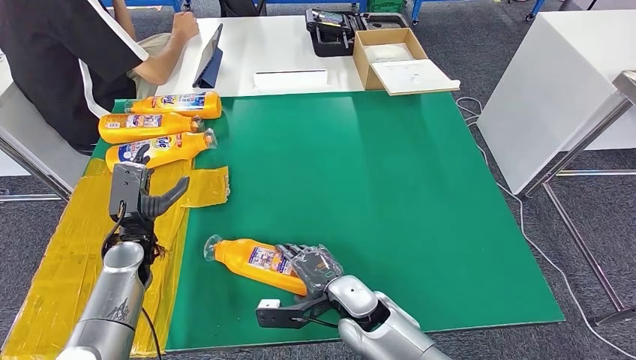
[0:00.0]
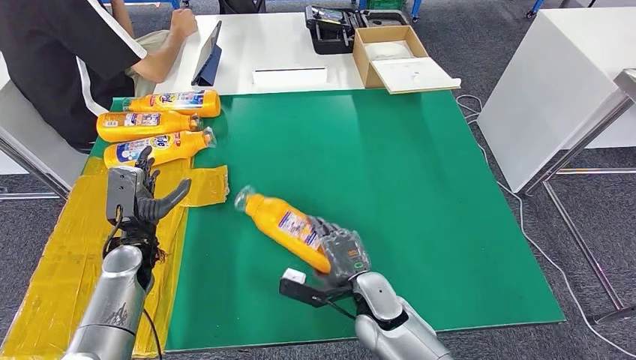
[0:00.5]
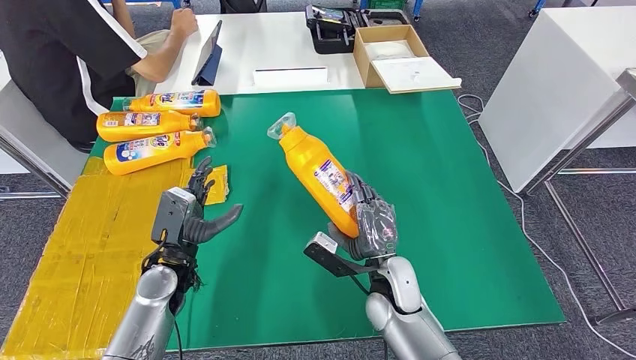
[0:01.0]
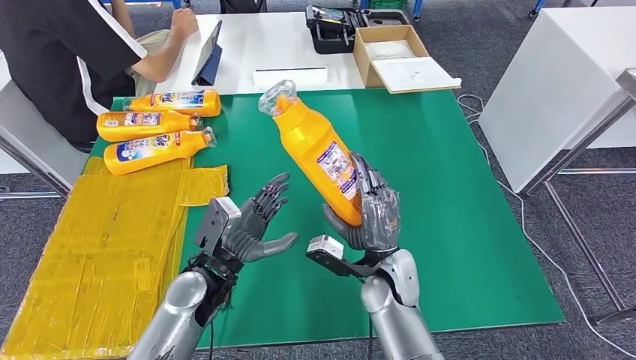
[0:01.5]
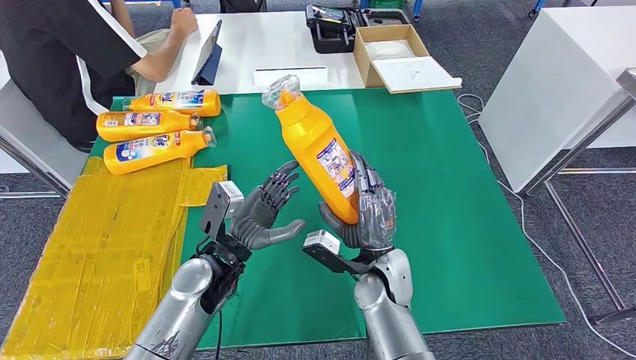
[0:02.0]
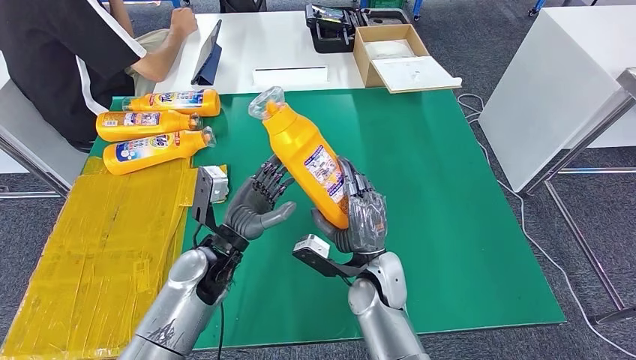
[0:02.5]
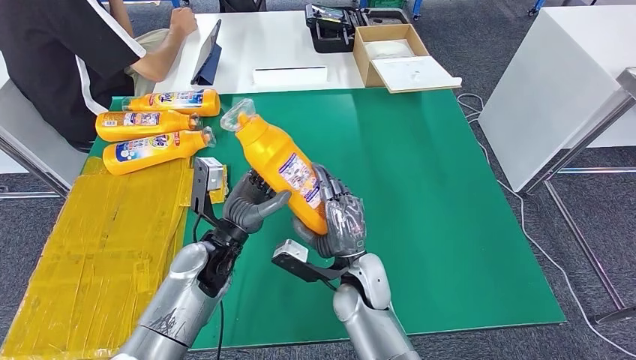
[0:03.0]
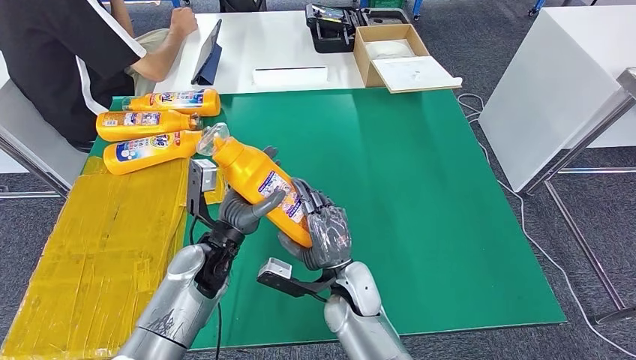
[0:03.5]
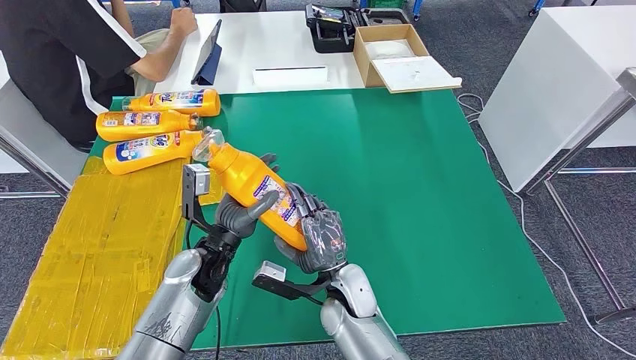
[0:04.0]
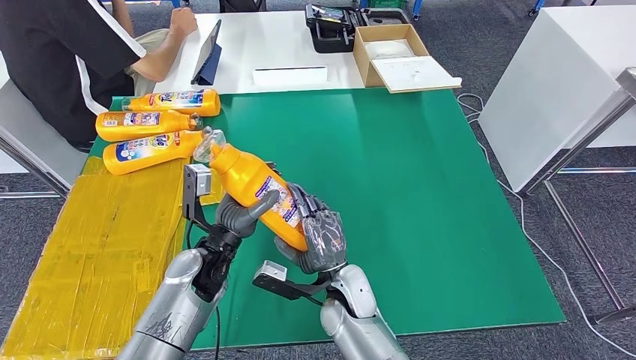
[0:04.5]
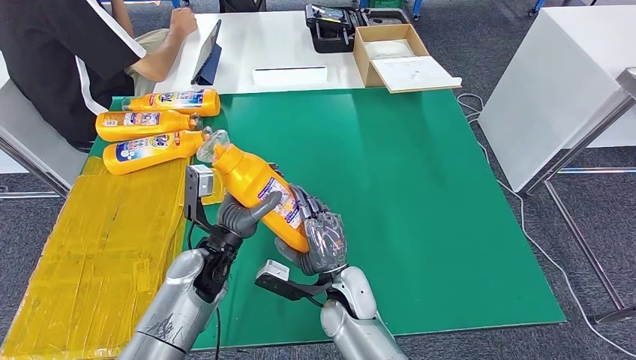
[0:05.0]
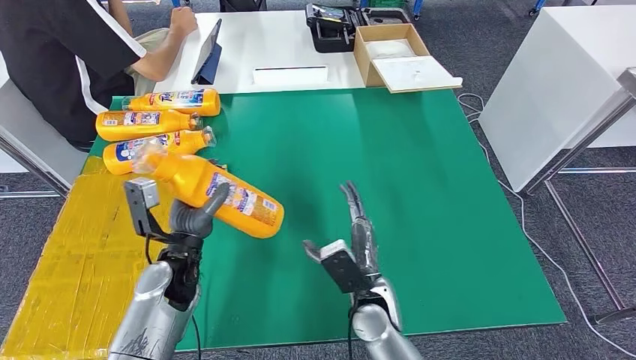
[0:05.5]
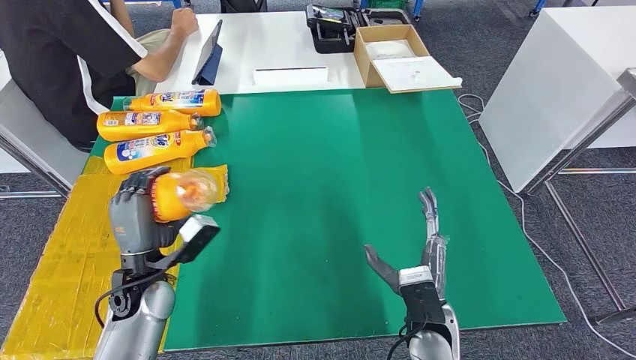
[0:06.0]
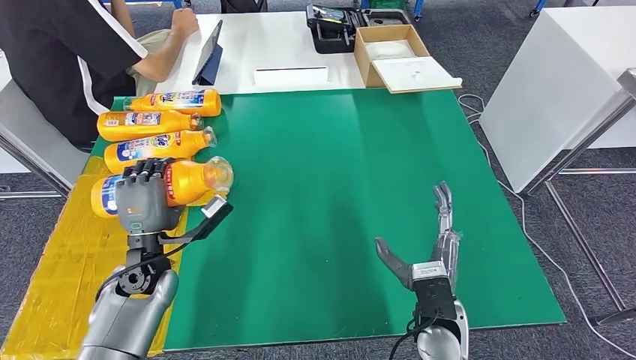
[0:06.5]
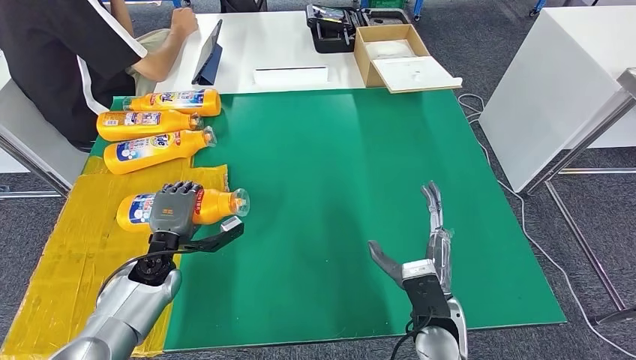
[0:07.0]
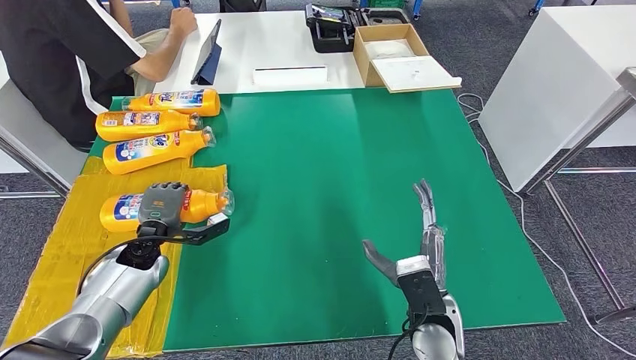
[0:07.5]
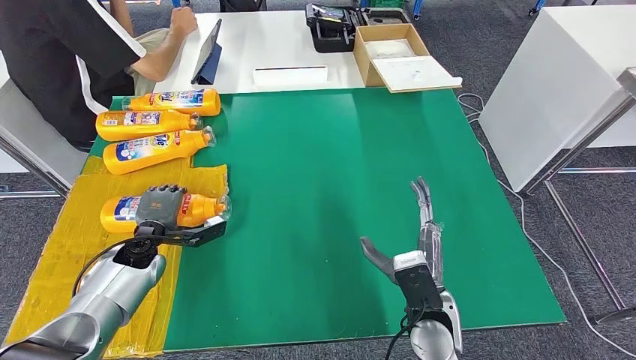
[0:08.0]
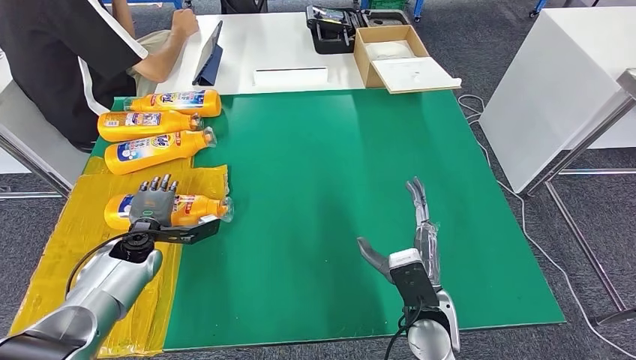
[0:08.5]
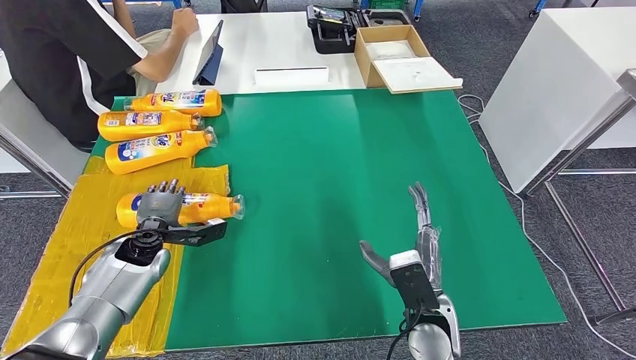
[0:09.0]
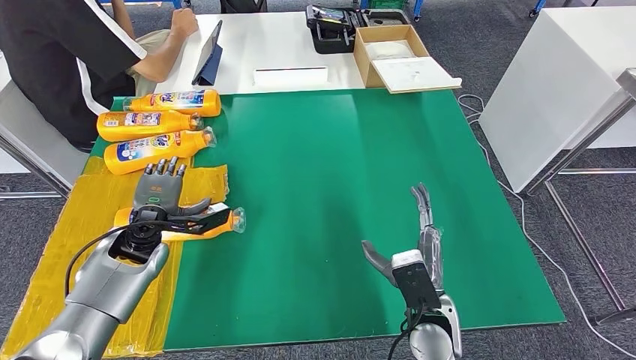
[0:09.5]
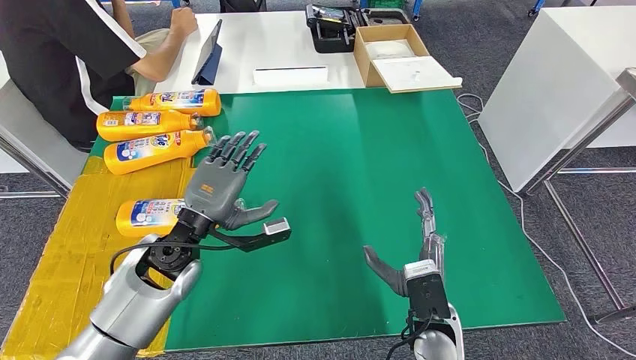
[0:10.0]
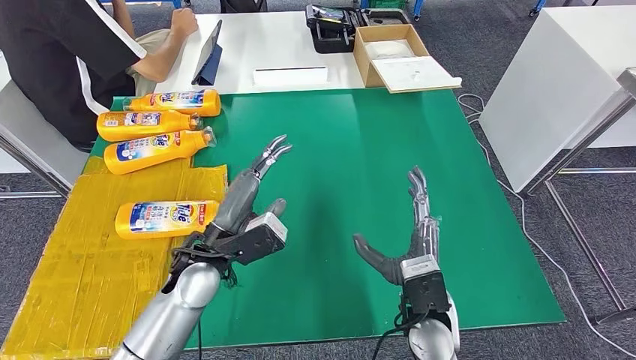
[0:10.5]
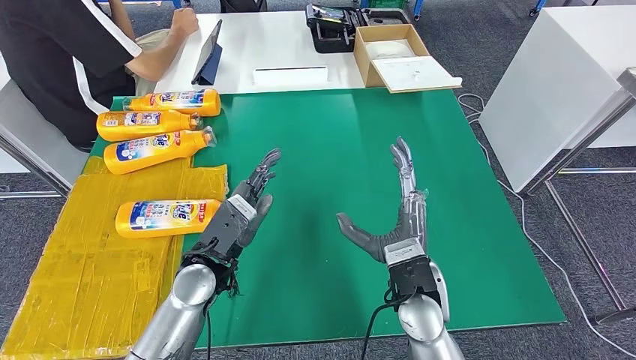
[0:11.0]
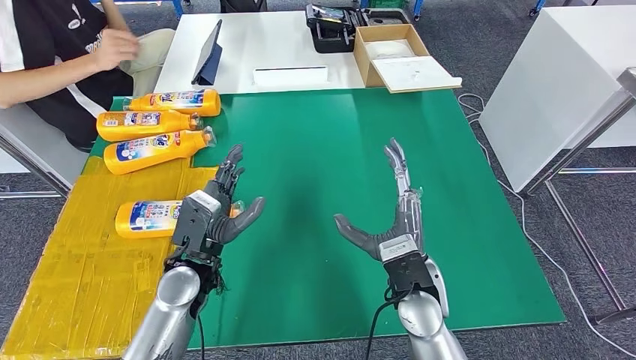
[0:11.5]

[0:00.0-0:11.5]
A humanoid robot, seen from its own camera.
Step, 0:00.0 to 0:05.0: Pick up the fast-moving consumer goods bottle from the table.
Step, 0:05.5 to 0:11.5: Flip the fast-moving consumer goods bottle to the front side.
0:02.0 to 0:04.0: The right hand travels to the left by about 5 cm.
0:04.0 to 0:06.0: The right hand is displaced to the right and backward by approximately 15 cm. Meanwhile the left hand travels to the left by some 10 cm.
0:06.0 to 0:07.5: The left hand moves forward, approximately 10 cm.
0:07.5 to 0:09.5: The left hand shifts some 5 cm upward.
0:09.5 to 0:11.5: The left hand goes roughly 15 cm to the right and backward. The right hand heads upward, covering roughly 5 cm.

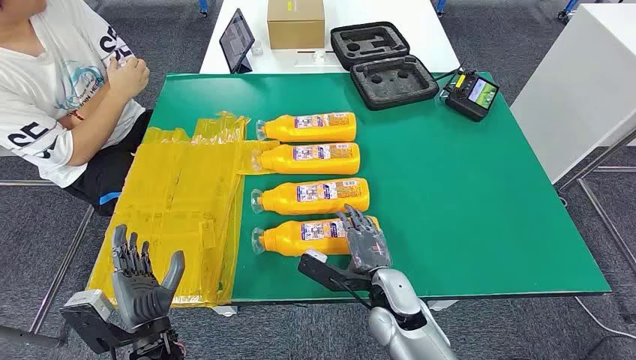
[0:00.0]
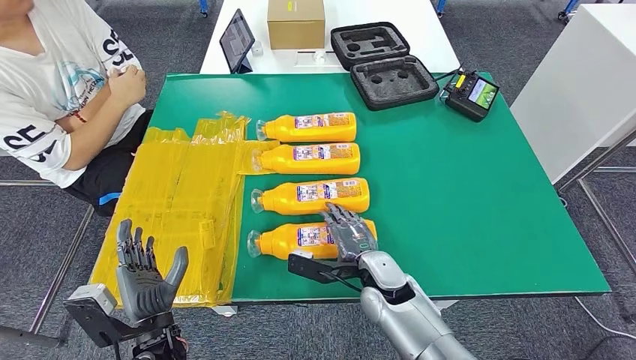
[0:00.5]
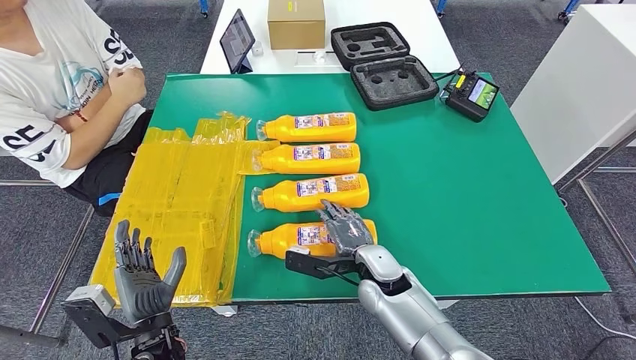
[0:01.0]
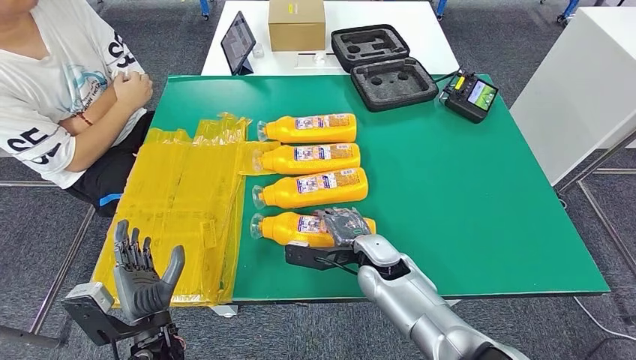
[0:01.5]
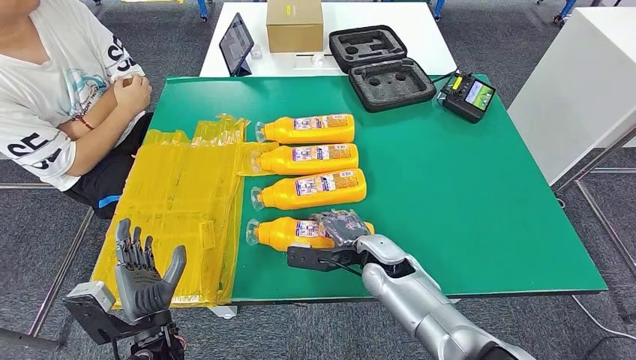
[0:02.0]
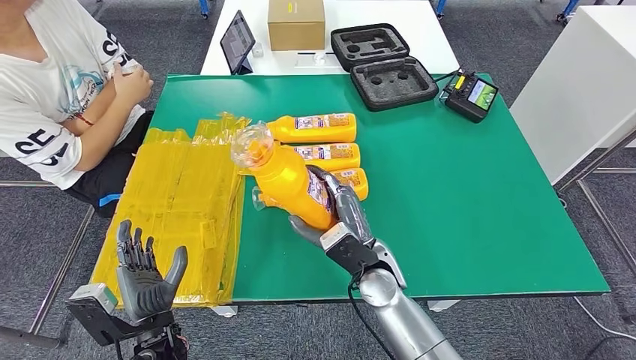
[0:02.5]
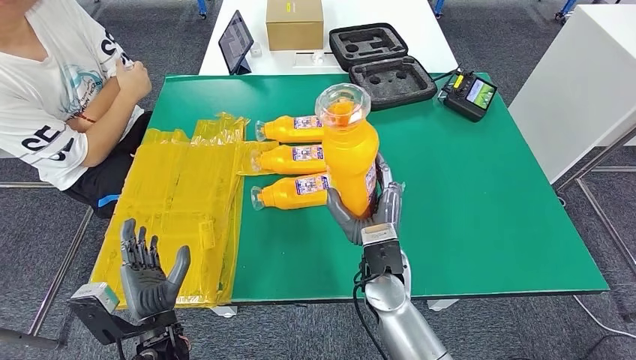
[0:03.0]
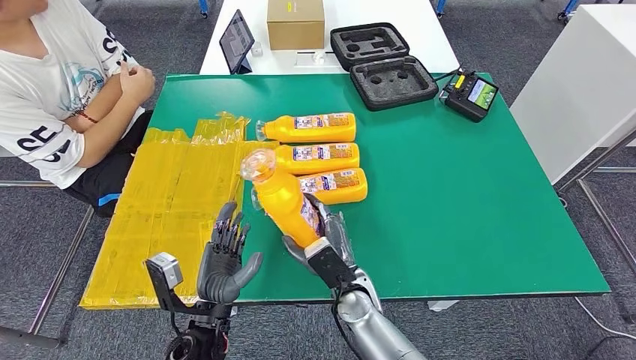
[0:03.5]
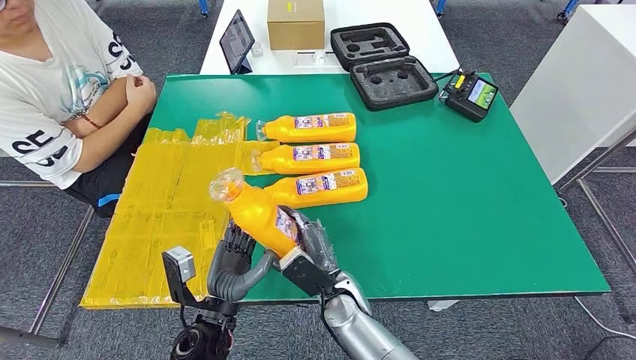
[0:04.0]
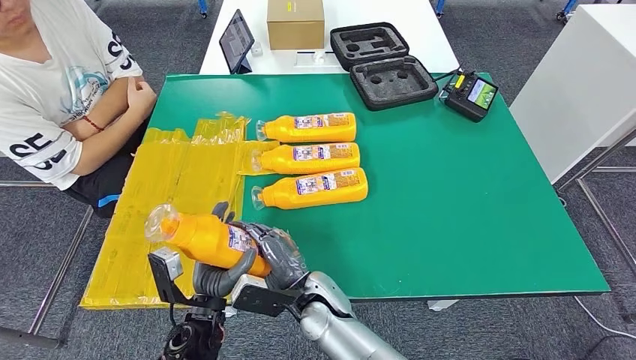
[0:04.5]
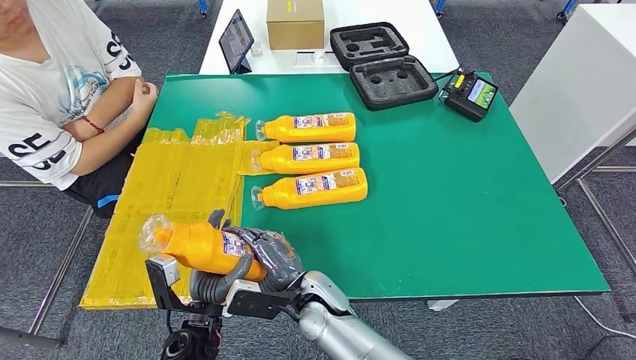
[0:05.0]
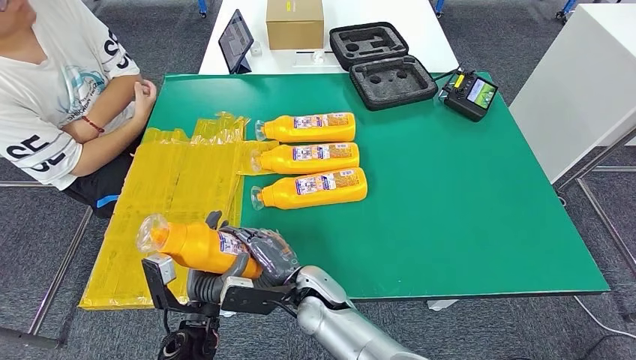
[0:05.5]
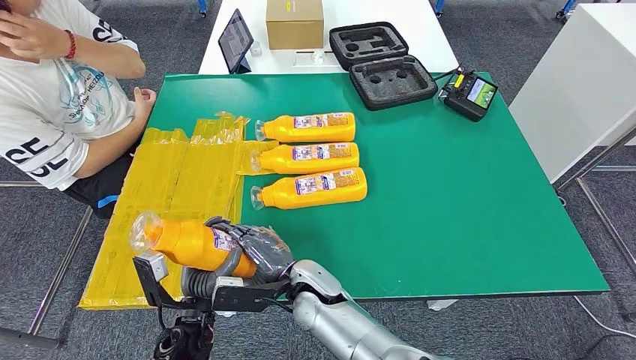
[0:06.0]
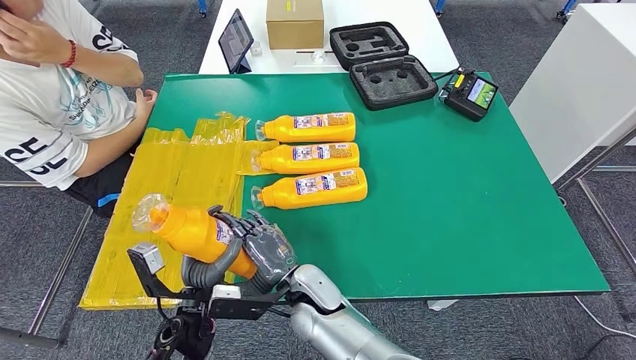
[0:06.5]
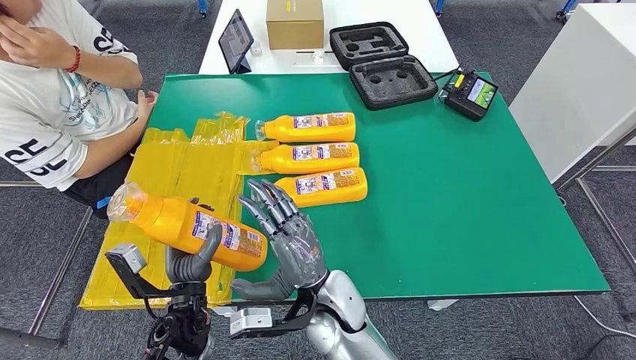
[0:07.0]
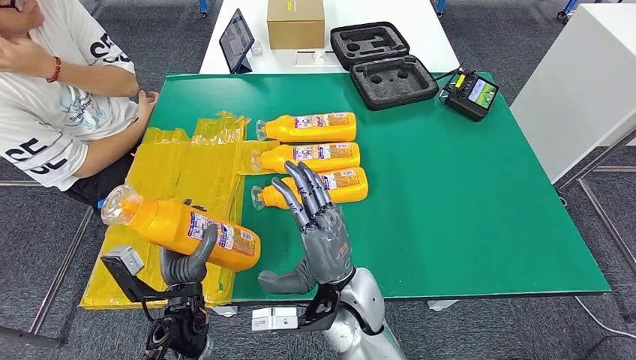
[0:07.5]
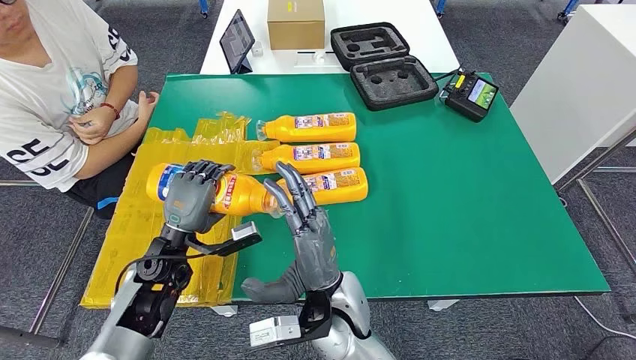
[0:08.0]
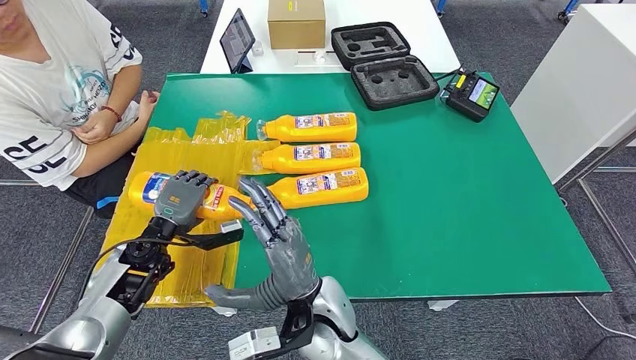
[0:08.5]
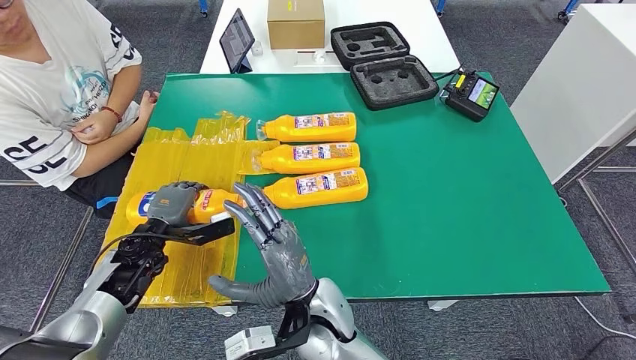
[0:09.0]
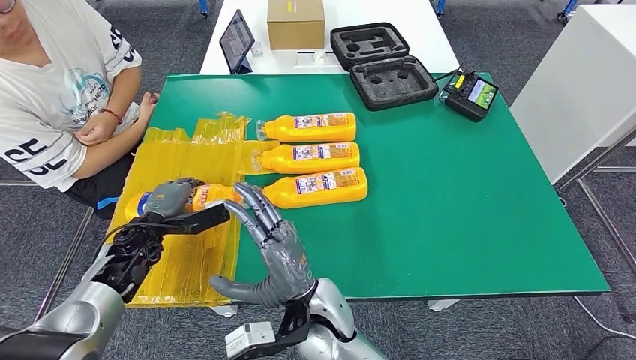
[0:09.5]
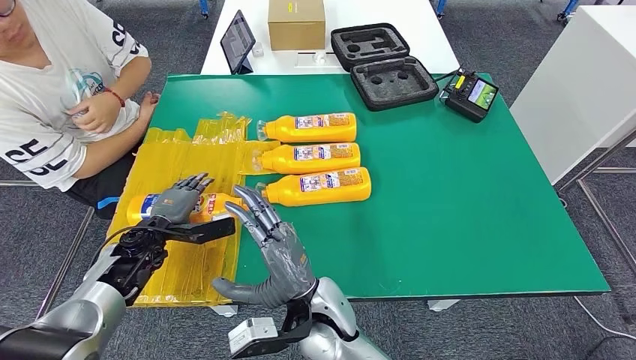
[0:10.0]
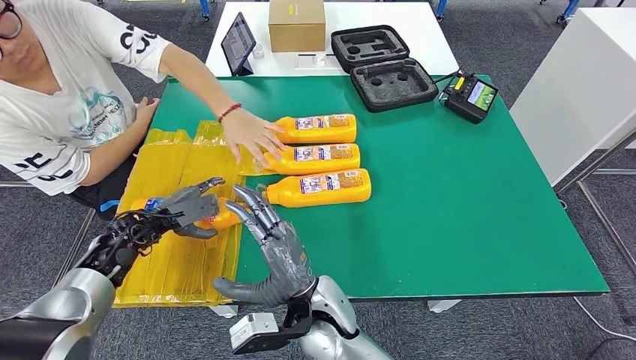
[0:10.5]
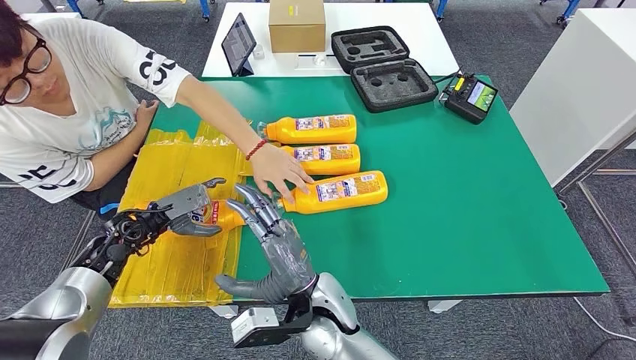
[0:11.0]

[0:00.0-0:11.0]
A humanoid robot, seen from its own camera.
Step, 0:00.0 to 0:03.5: Take the fast-moving consumer goods bottle from the table.
0:03.5 to 0:05.5: The right hand heads to the left, covering about 10 cm.
0:05.5 to 0:07.5: The right hand goes approximately 10 cm to the right and upward.
